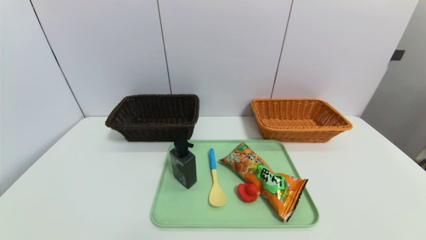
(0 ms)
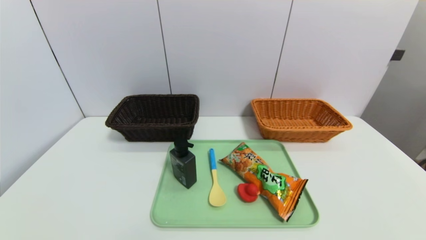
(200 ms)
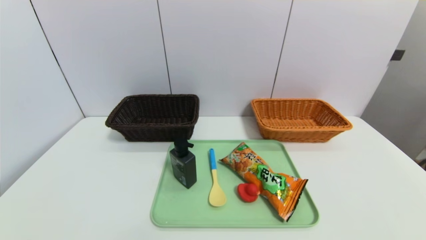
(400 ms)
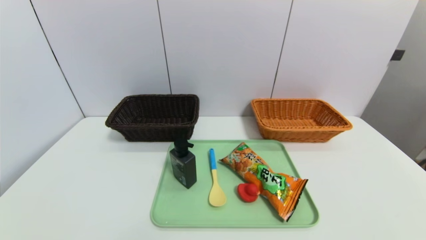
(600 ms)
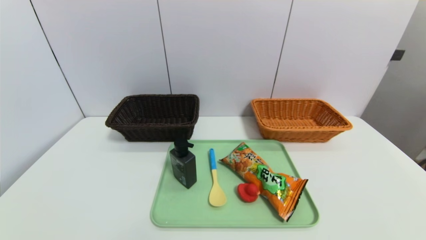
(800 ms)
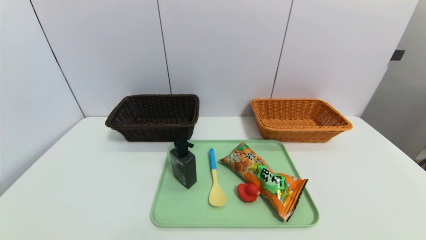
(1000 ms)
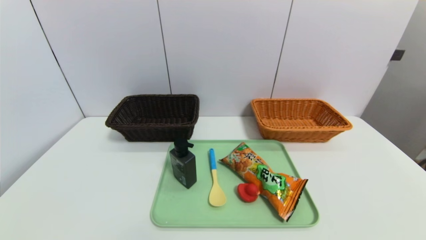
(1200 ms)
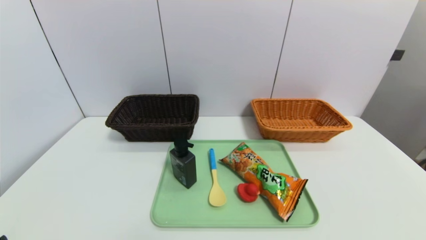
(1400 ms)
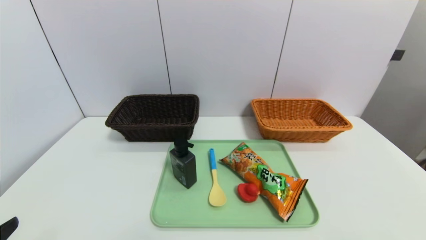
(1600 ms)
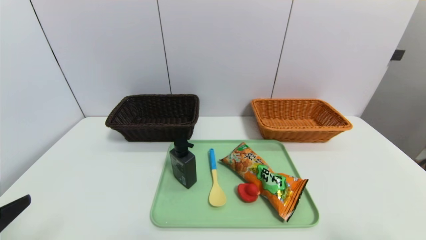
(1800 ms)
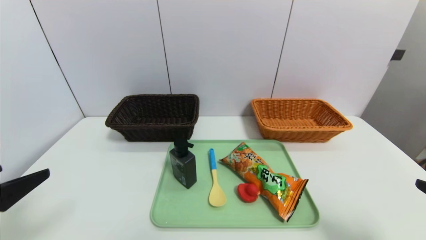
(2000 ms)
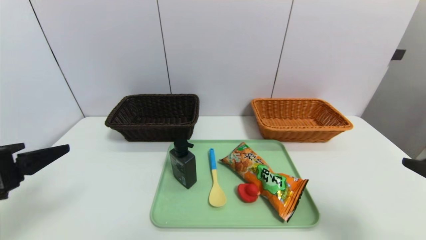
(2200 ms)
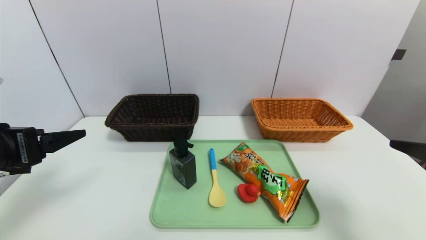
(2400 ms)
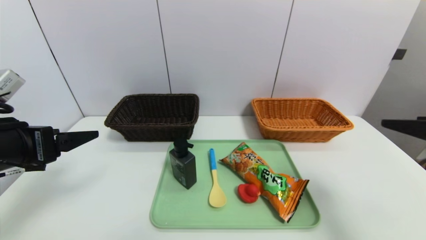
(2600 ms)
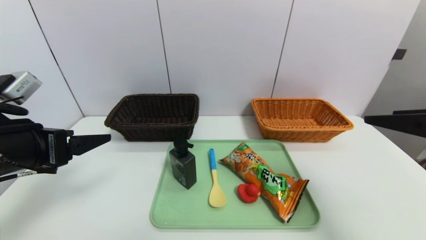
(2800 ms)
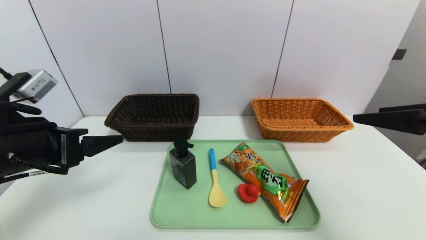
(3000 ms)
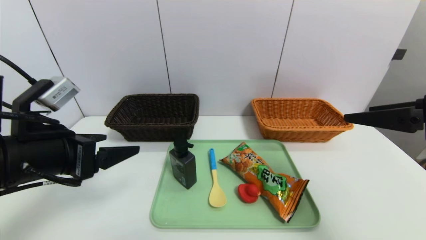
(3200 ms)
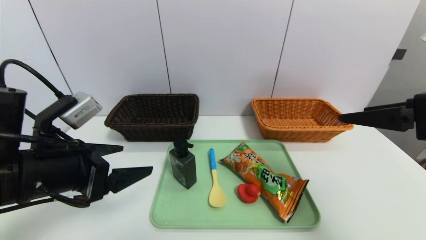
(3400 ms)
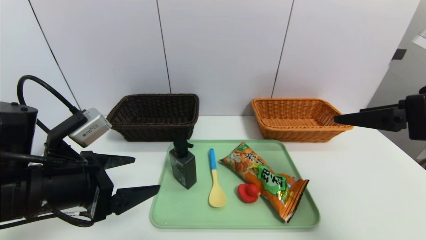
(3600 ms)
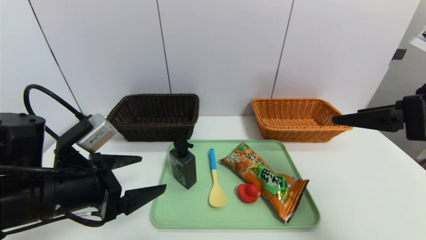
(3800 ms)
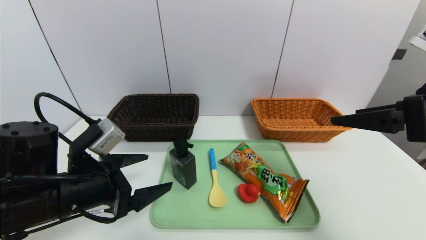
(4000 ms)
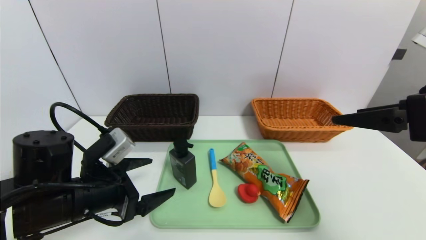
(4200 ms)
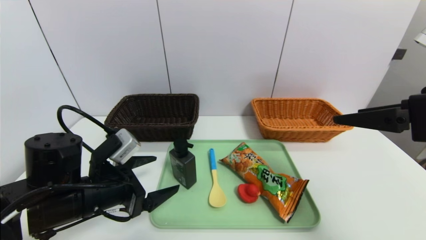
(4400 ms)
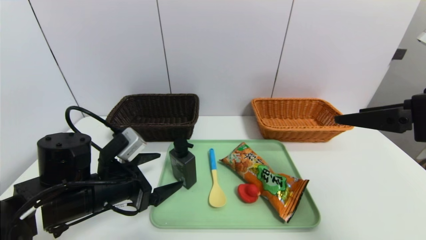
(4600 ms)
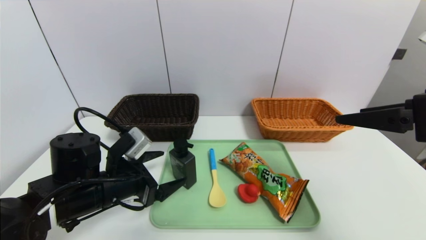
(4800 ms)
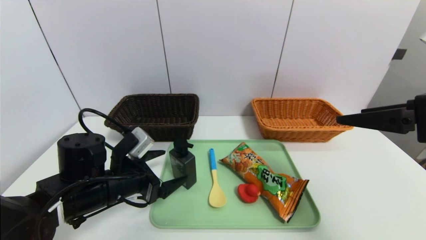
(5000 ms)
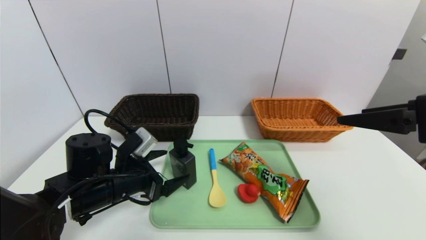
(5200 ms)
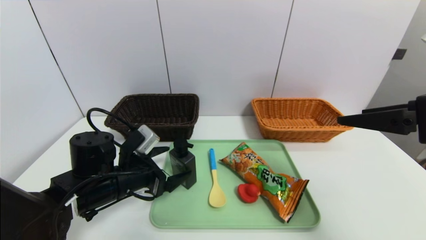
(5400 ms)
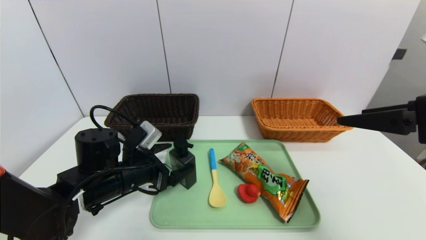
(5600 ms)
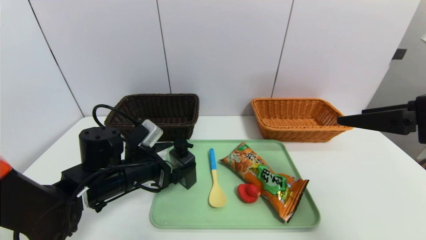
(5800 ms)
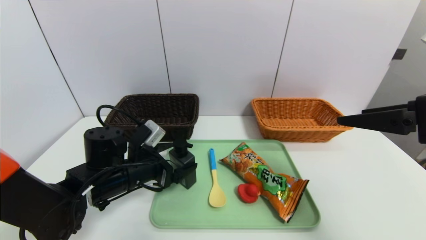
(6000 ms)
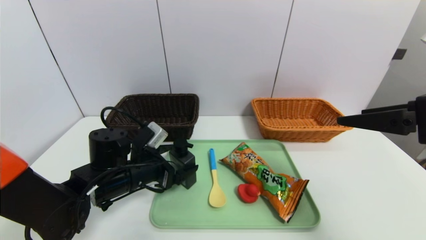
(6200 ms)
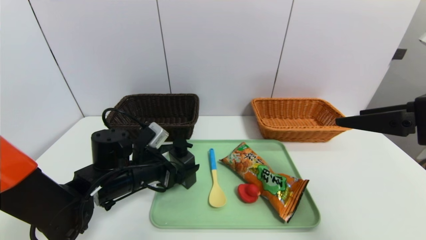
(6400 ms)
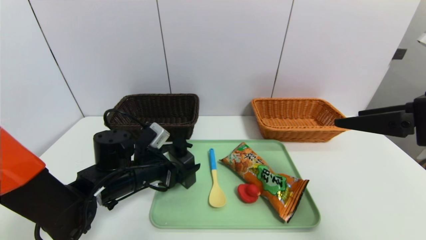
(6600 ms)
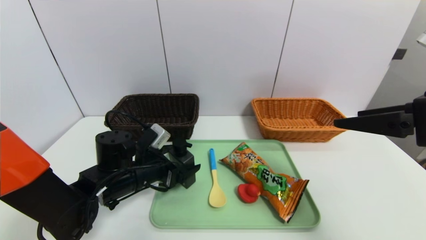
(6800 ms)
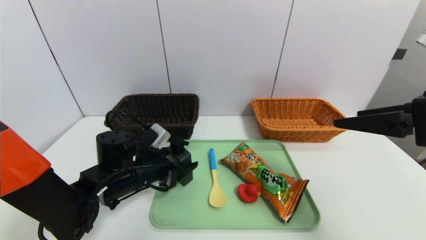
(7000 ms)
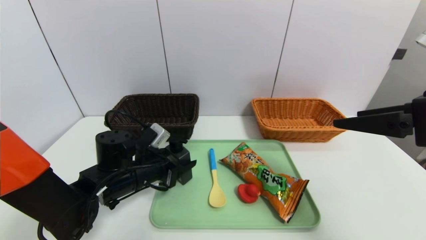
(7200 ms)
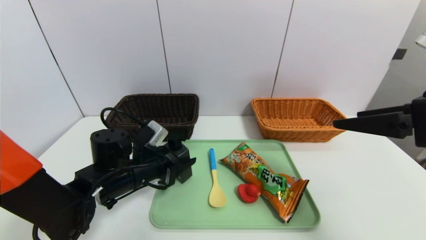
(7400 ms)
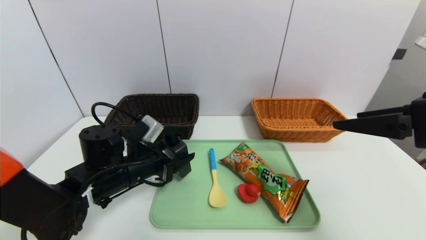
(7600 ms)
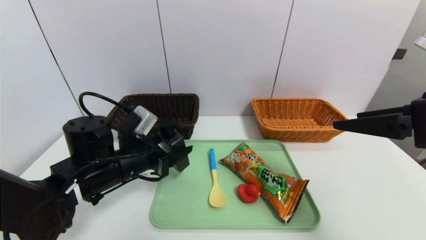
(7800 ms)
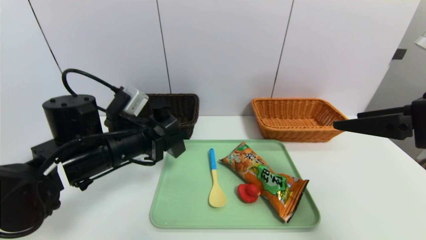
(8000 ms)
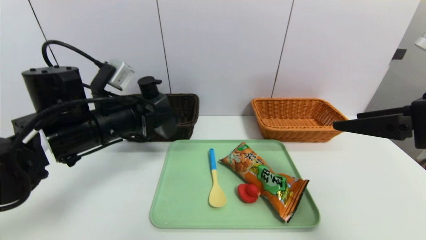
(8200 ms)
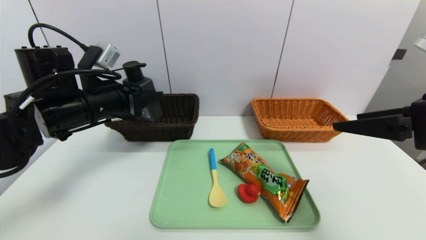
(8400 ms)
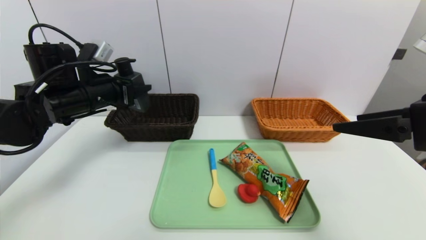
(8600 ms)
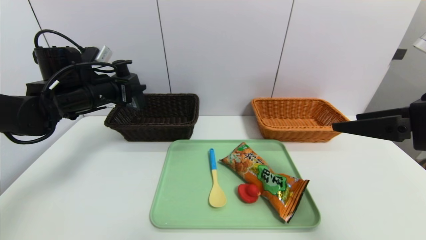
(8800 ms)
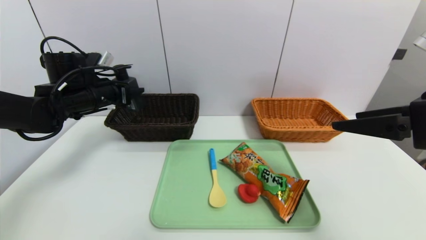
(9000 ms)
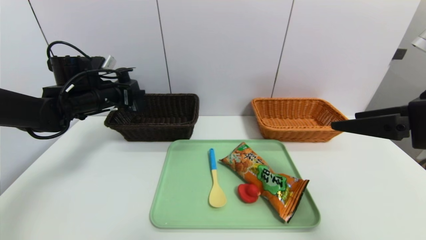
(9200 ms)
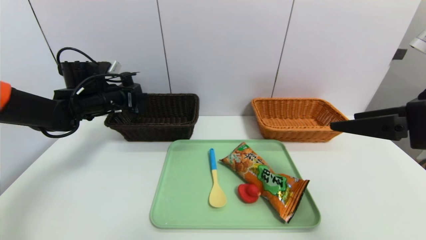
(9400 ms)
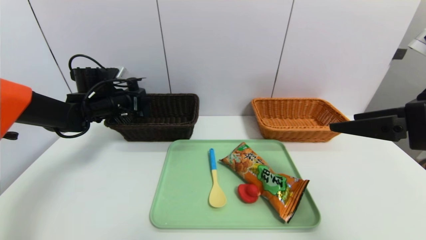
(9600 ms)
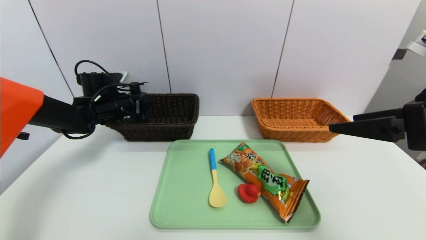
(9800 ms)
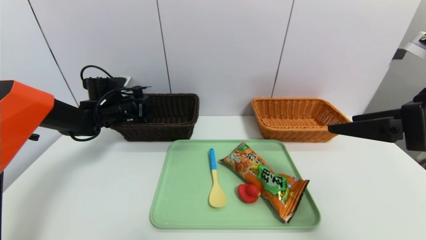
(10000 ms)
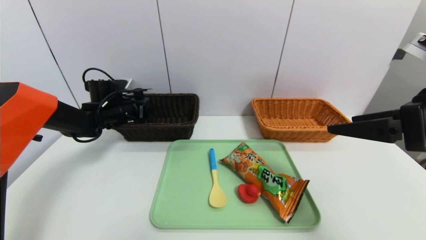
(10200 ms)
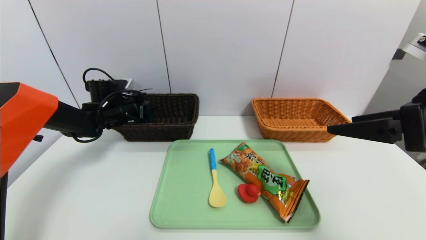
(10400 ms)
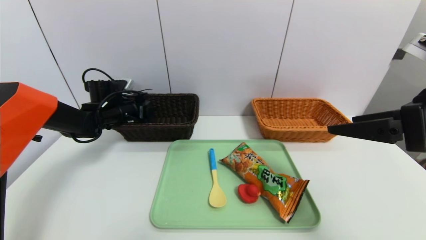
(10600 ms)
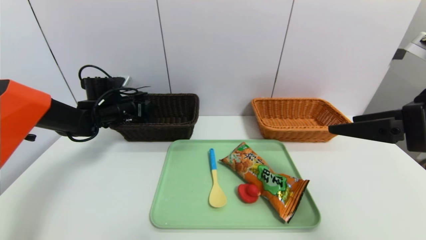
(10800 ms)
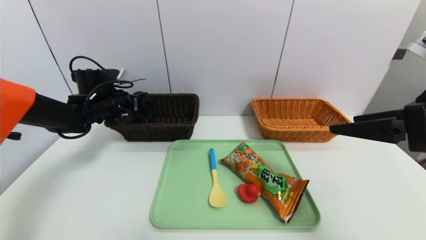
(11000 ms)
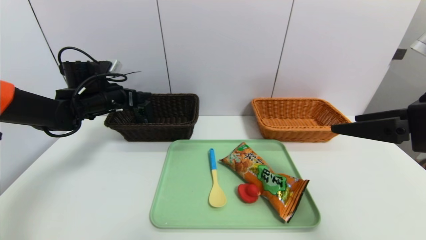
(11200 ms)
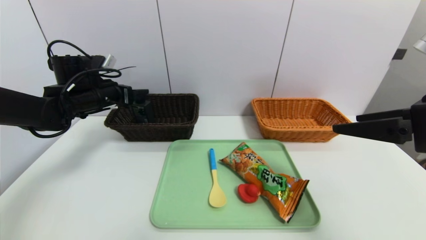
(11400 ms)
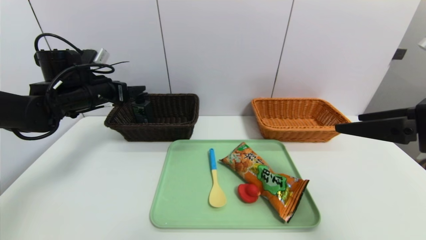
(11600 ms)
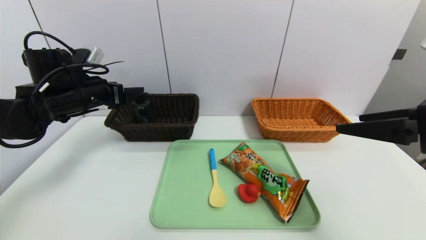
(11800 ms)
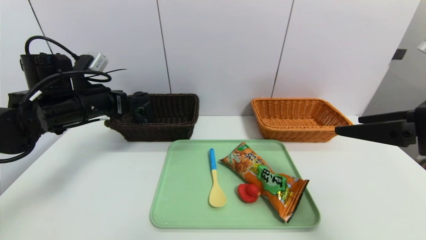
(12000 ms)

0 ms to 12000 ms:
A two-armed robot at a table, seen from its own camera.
Task of the whole recording: place the food in the right basket with the right gripper, and place the non food items in the left basket with the left gripper.
Step, 0 ms to 11000 ms: Grasp the hard cleanser and put it in the left basket.
1600 ms to 3000 ms: The right gripper moves forward and upward, about 20 cm, while the left gripper travels forward by approximately 15 cm.
3000 ms to 4400 ms: The left gripper is displaced downward and to the right by some 10 cm.
4400 ms to 6000 ms: The left gripper moves forward, about 5 cm.
6000 ms to 7600 ms: The left gripper closes.
7600 ms to 9000 ms: The left gripper moves forward, to the left and upward, some 20 cm.
9000 ms to 10400 ms: The left gripper travels downward and forward by some 10 cm.
10400 ms to 12000 ms: The left gripper heads backward and upward, covering about 15 cm.

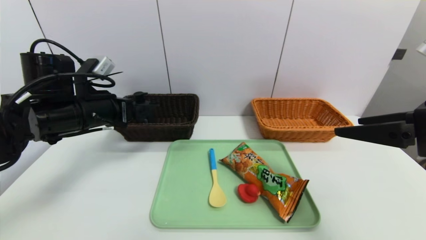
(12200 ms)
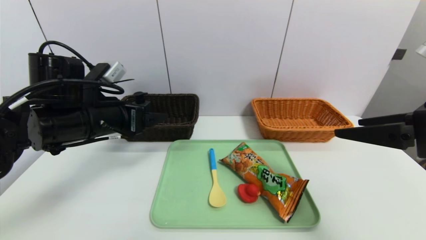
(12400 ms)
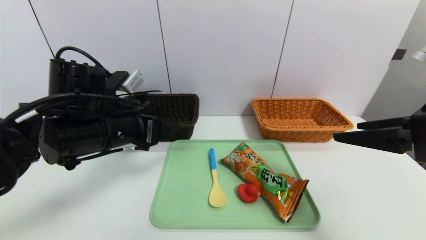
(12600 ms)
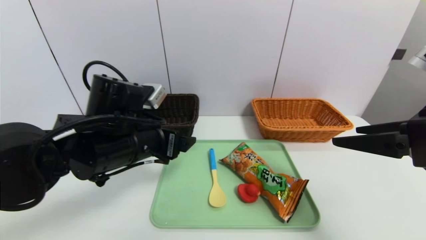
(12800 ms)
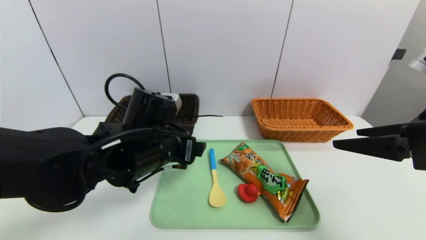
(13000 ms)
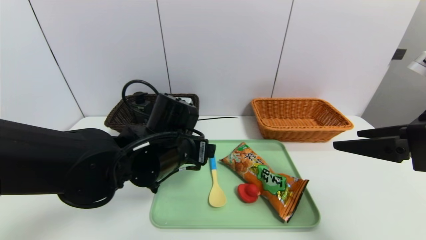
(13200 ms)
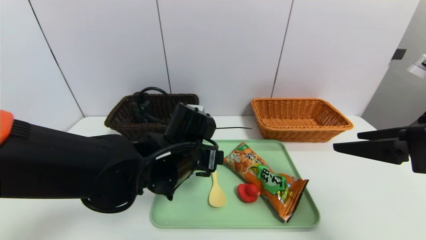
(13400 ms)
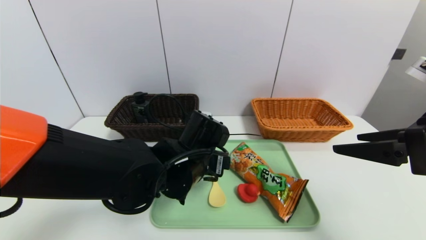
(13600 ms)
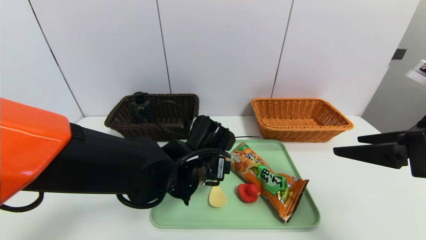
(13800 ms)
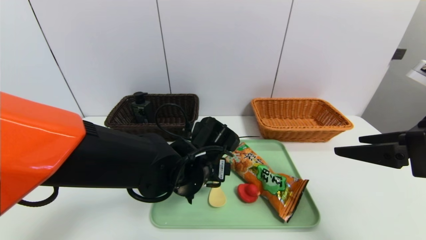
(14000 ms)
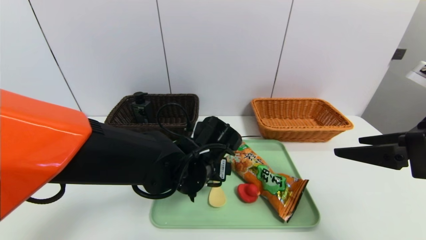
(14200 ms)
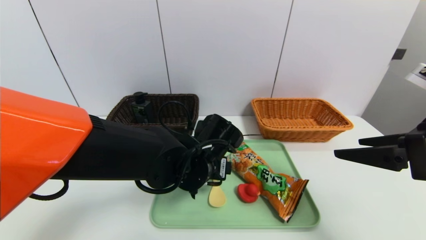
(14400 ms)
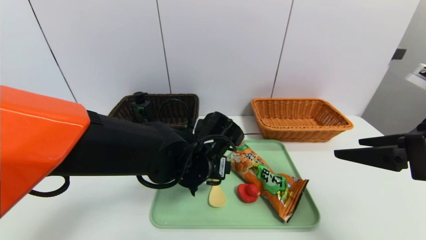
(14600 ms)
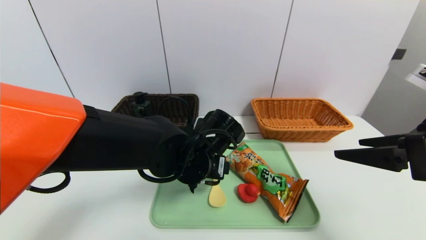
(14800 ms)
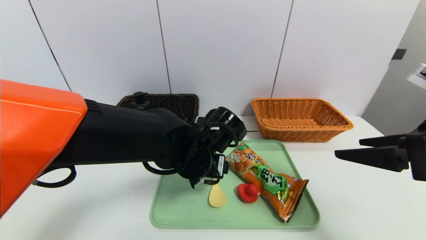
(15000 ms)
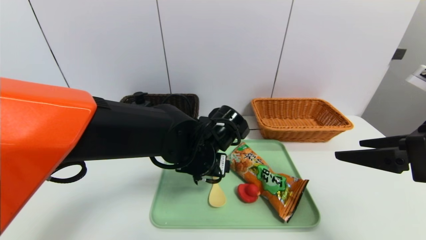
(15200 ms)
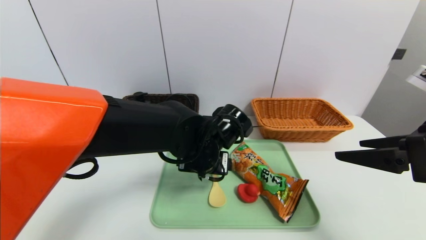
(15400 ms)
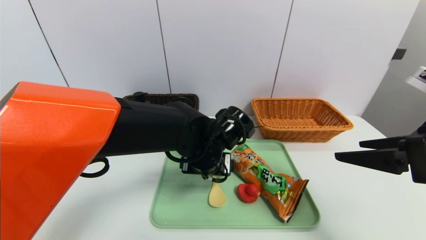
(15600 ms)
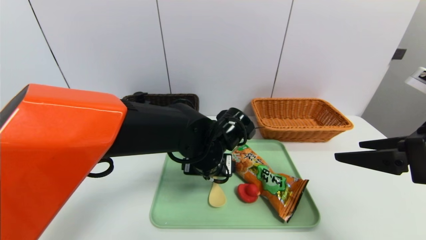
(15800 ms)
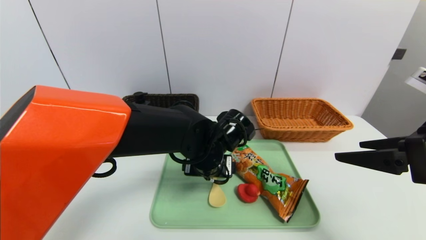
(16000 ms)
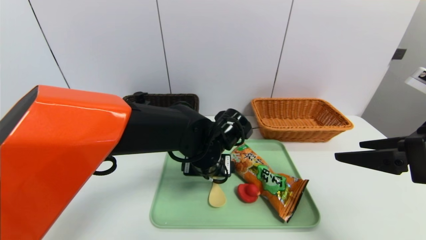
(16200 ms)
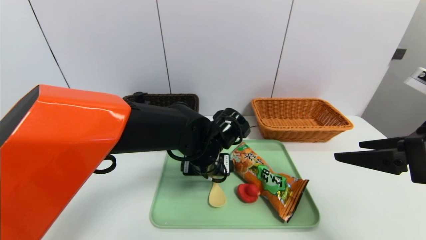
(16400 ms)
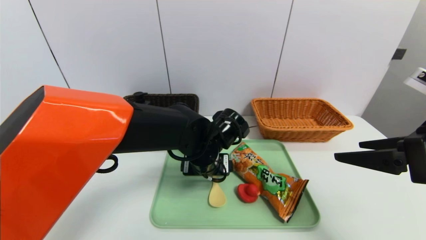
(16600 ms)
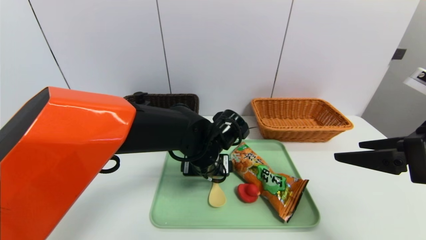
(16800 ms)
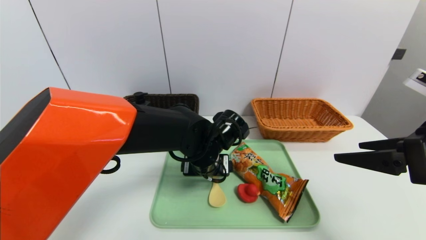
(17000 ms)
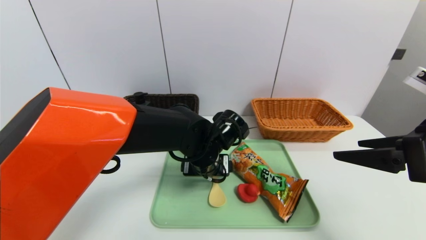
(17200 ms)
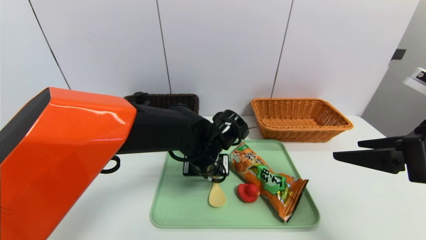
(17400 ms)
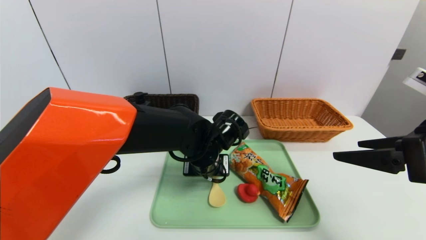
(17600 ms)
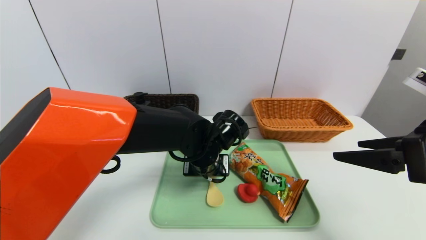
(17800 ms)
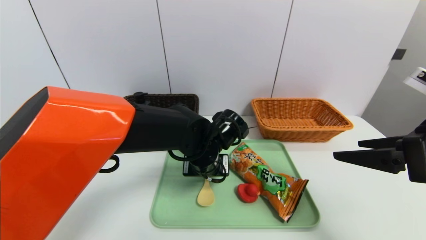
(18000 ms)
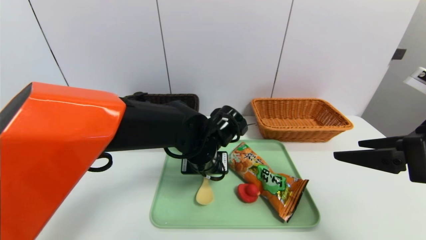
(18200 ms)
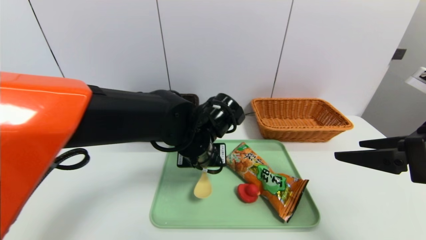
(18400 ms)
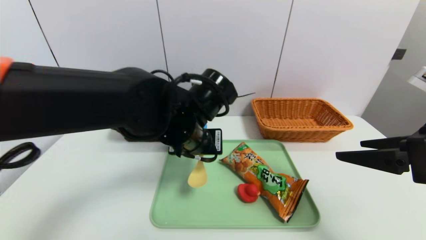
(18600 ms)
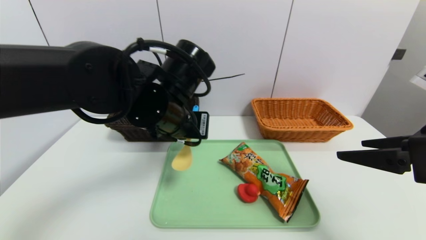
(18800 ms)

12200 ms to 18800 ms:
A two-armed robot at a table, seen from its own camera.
Task of the whole recording: place the food in the right basket with the right gripper, and place the non food items in the left basket with the left gripper.
12200 ms to 13800 ms: The left gripper heads to the right and downward, covering about 20 cm.
13800 ms to 15400 ms: There are only small adjustments of the grippers.
15400 ms to 17200 ms: The grippers make only small movements.
17200 ms to 18800 ms: The left gripper travels upward and to the left by roughly 15 cm, and closes its fingers.
